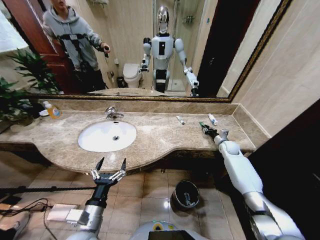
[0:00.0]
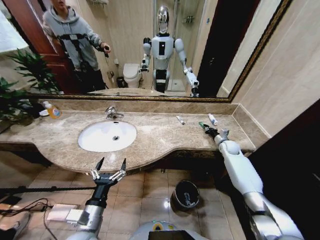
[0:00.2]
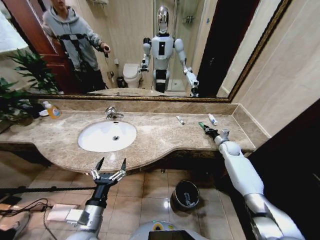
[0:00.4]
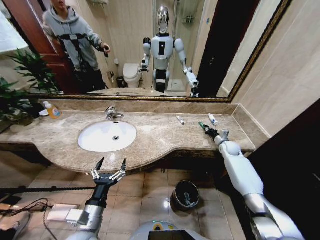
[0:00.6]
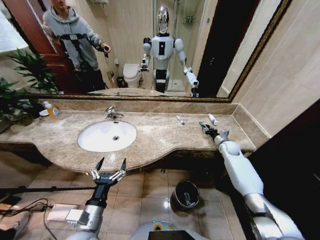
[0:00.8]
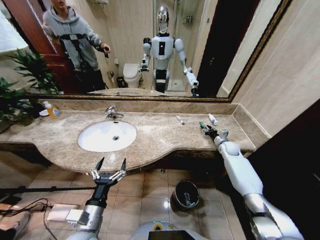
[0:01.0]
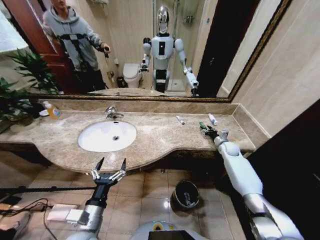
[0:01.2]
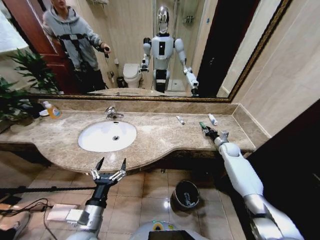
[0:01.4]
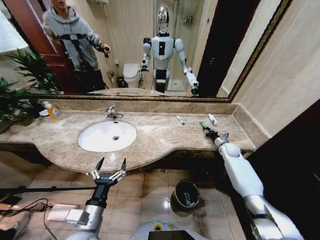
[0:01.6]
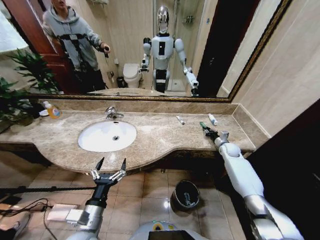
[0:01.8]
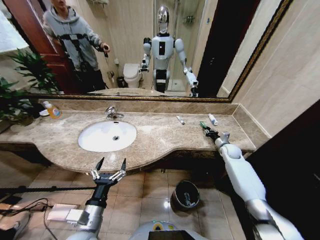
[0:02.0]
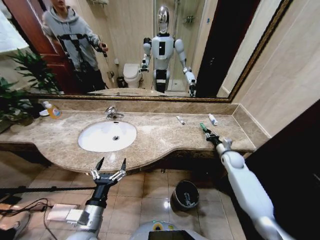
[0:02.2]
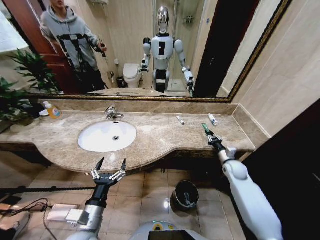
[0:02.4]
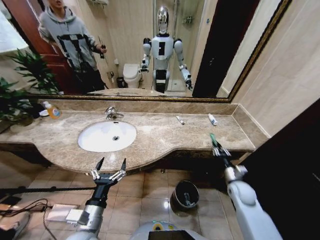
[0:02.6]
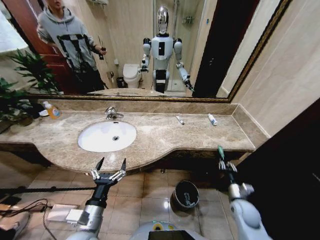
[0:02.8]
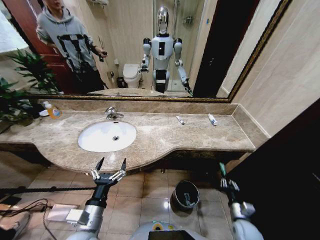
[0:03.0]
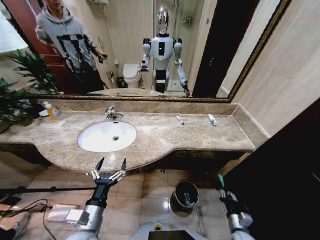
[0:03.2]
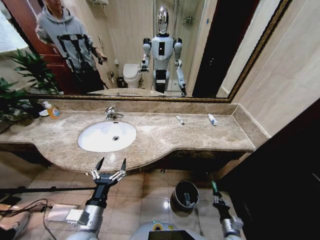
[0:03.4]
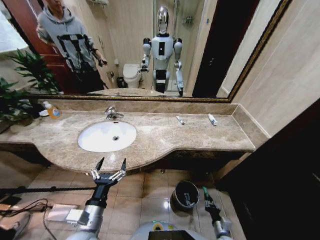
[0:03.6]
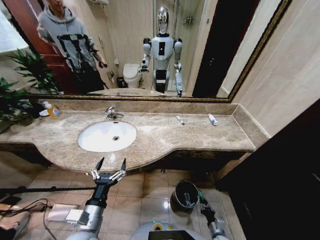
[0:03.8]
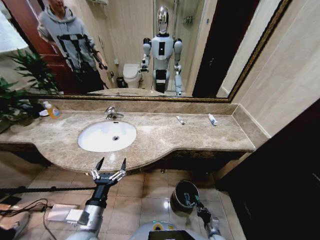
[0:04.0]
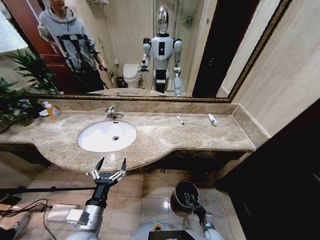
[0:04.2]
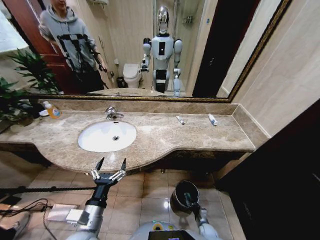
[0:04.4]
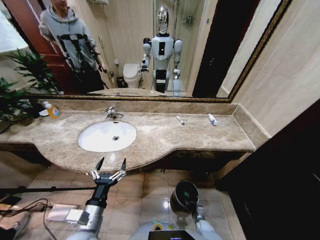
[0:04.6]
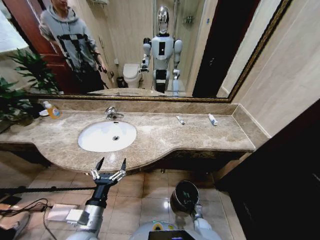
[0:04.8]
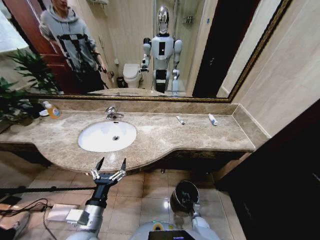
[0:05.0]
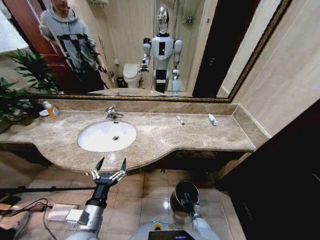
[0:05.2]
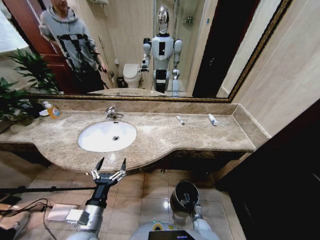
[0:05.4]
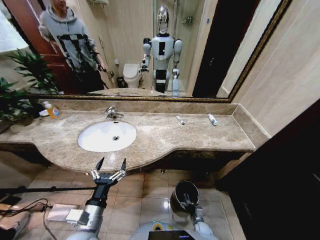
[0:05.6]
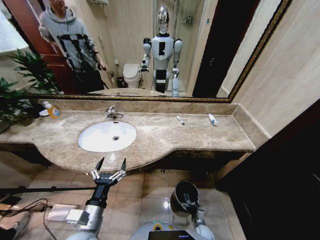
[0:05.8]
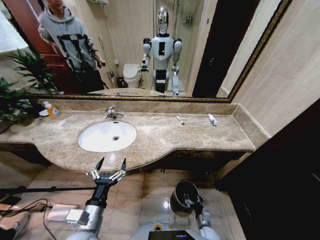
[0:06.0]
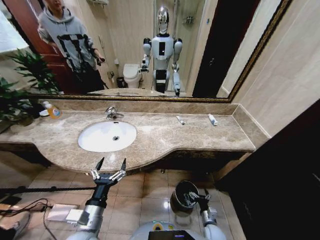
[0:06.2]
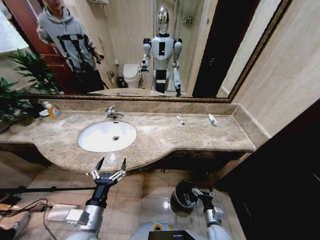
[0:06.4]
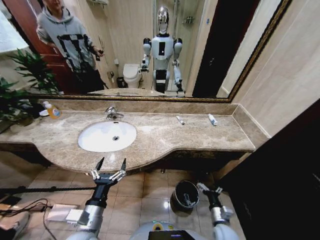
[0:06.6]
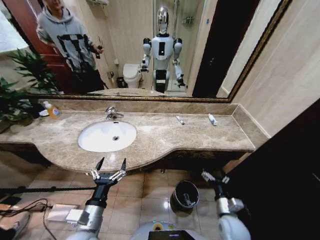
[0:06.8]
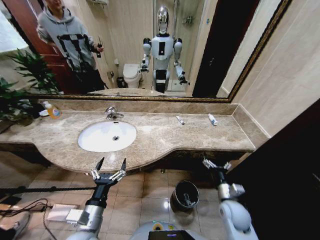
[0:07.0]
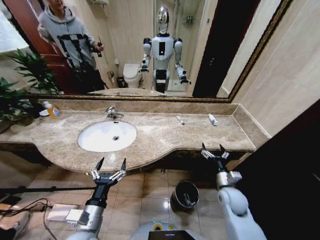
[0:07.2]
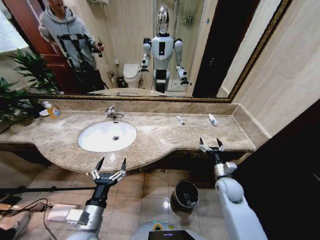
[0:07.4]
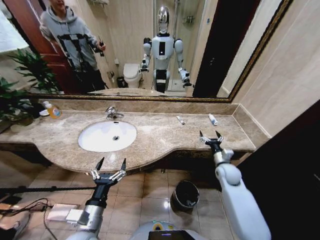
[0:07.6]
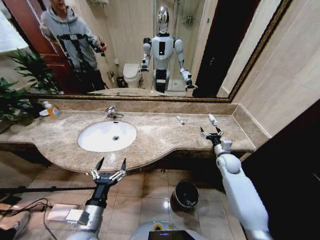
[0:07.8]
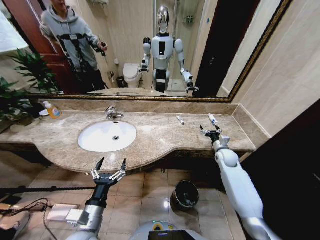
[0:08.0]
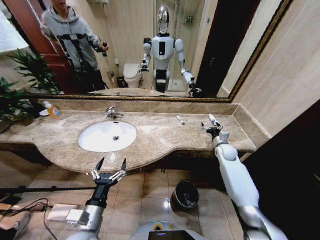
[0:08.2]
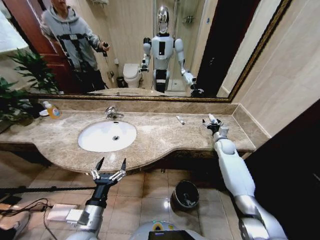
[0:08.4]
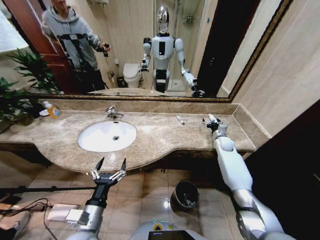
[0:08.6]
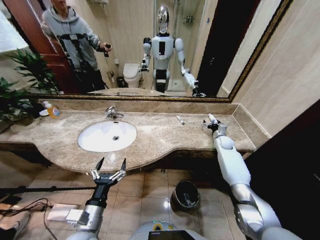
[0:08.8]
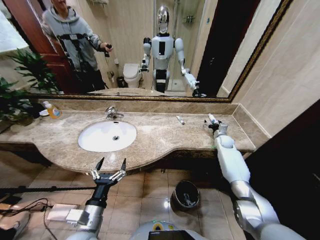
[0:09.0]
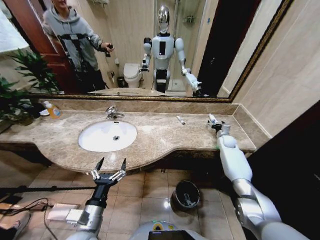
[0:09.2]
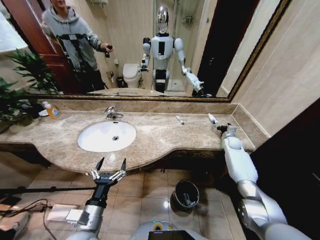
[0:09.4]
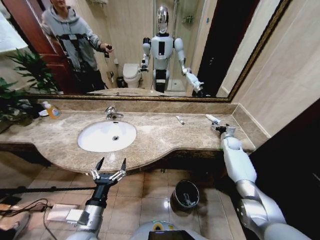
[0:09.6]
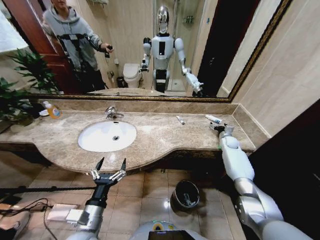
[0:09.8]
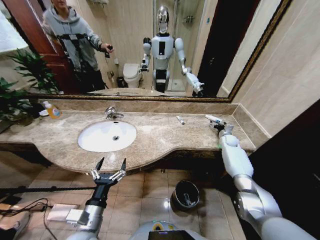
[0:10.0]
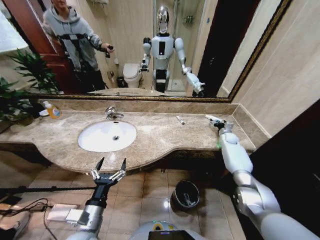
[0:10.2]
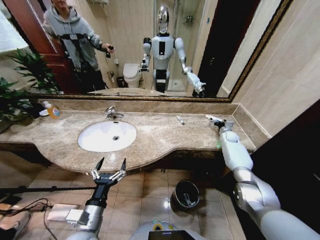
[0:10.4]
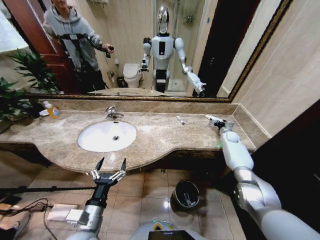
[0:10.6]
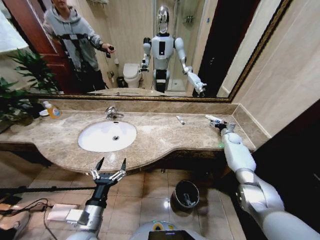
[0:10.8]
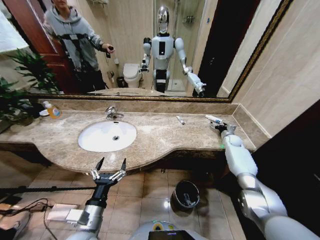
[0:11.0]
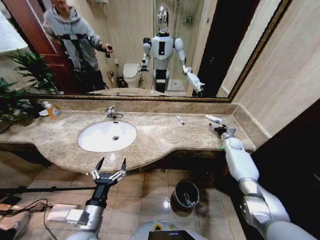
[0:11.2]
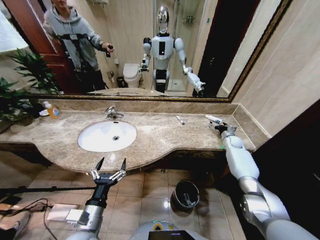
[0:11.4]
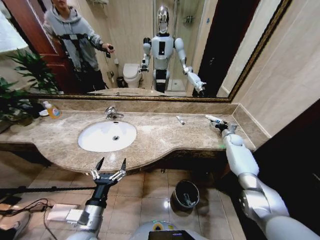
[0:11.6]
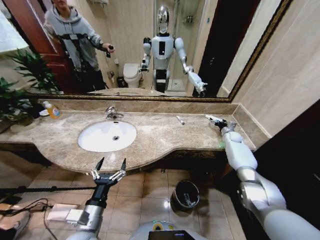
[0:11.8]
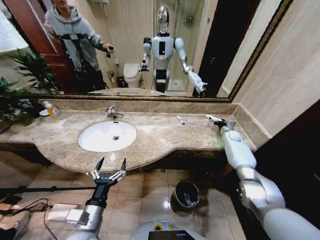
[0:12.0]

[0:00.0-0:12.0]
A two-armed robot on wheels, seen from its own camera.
Task of the whole recording: Pick up the trash from the sink and place it in the trash bin.
0:00.0 to 0:01.6: The right gripper opens and closes again.
0:01.6 to 0:03.0: The right gripper goes about 35 cm backward.
0:03.0 to 0:04.4: The right gripper heads downward, covering approximately 25 cm.
0:04.4 to 0:06.0: The right gripper moves upward, approximately 5 cm, and opens up.
0:06.0 to 0:07.6: The right gripper travels upward and forward by some 35 cm.
0:07.6 to 0:09.0: The right gripper goes approximately 20 cm forward and to the right.
0:09.0 to 0:10.4: The right gripper goes roughly 5 cm to the right.
0:10.4 to 0:12.0: The grippers stay close to where they were, moving slightly.

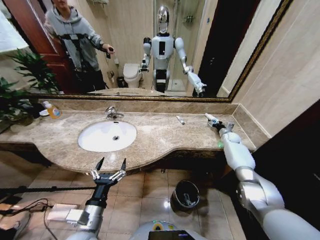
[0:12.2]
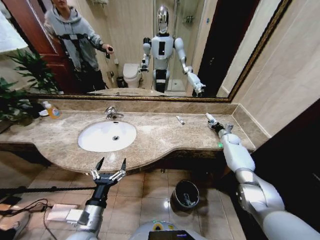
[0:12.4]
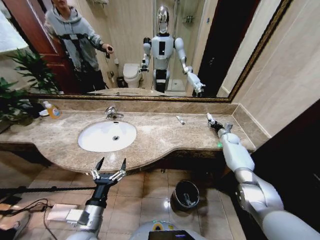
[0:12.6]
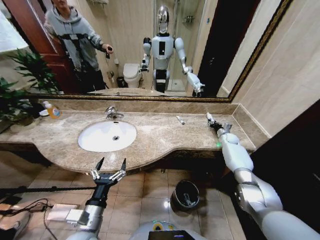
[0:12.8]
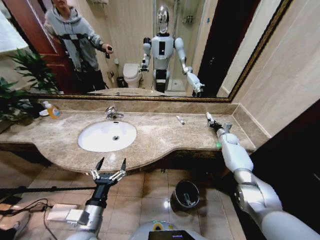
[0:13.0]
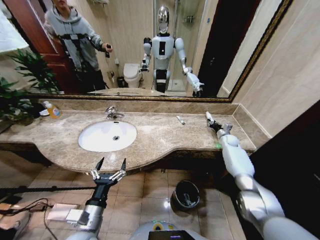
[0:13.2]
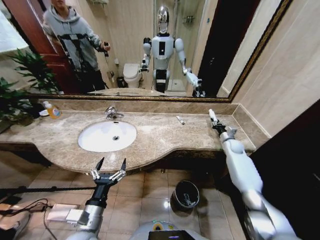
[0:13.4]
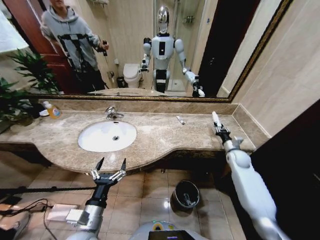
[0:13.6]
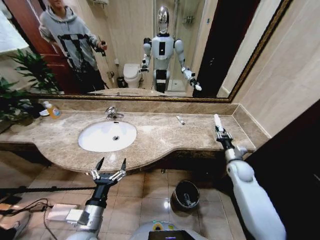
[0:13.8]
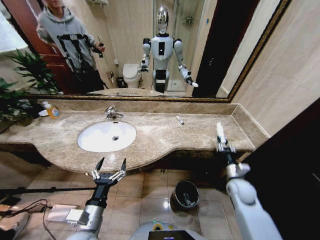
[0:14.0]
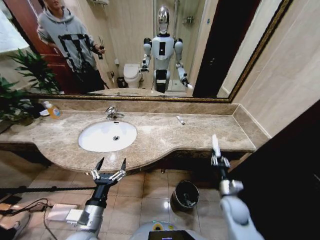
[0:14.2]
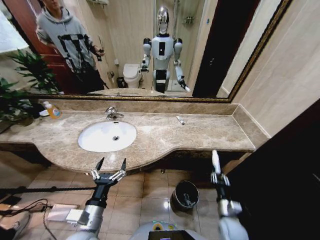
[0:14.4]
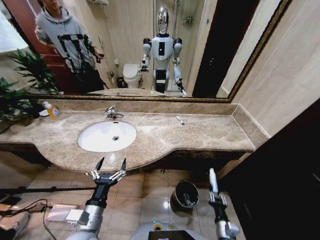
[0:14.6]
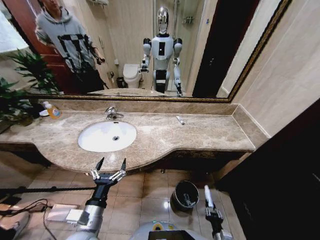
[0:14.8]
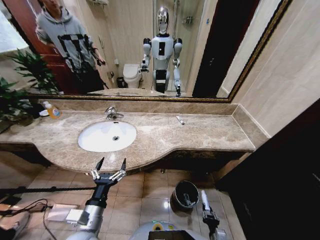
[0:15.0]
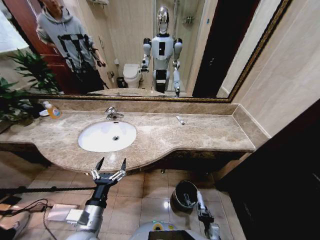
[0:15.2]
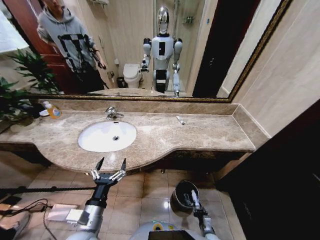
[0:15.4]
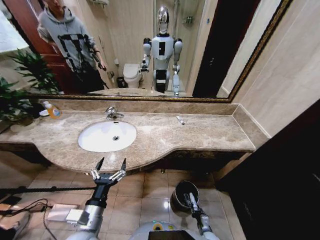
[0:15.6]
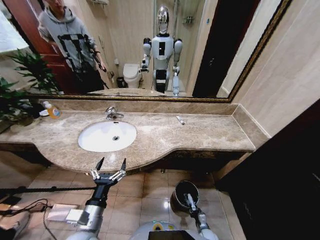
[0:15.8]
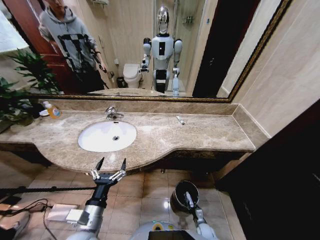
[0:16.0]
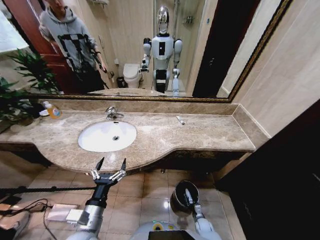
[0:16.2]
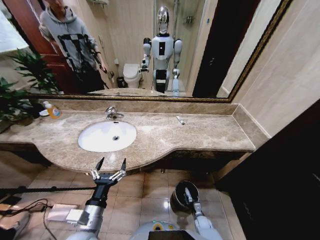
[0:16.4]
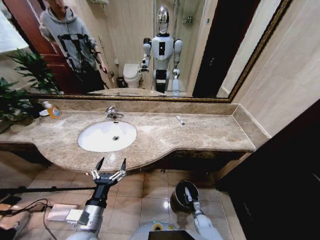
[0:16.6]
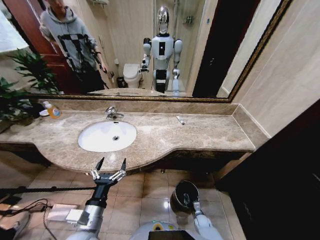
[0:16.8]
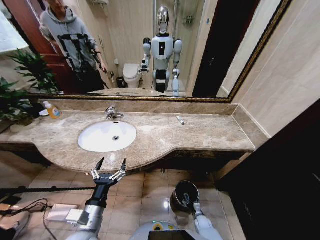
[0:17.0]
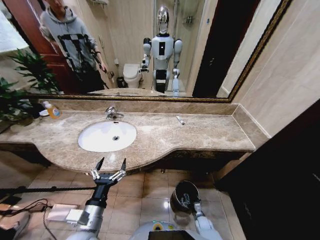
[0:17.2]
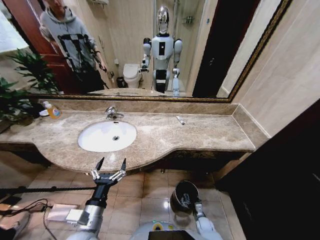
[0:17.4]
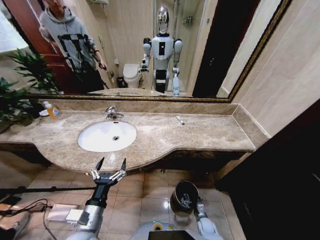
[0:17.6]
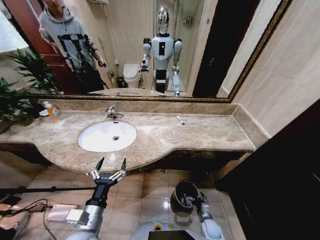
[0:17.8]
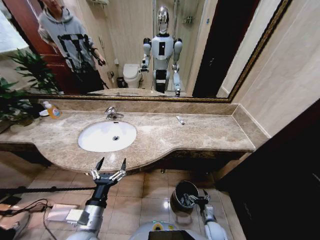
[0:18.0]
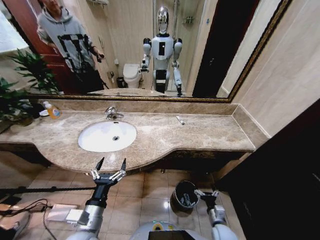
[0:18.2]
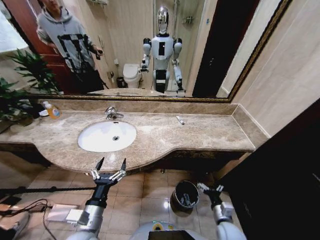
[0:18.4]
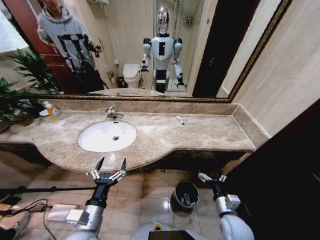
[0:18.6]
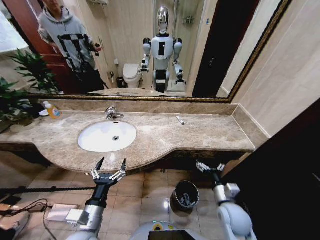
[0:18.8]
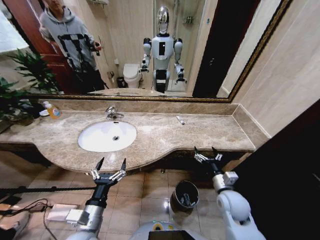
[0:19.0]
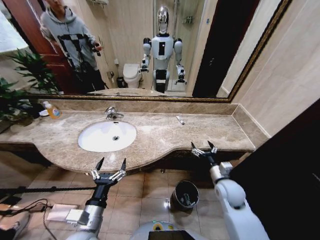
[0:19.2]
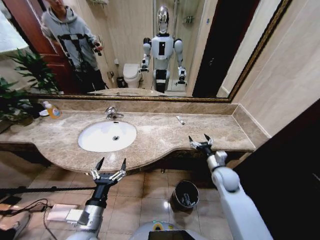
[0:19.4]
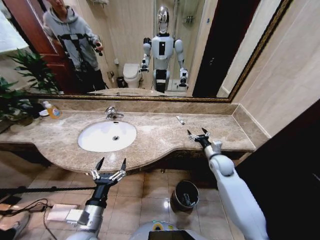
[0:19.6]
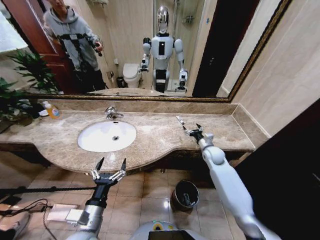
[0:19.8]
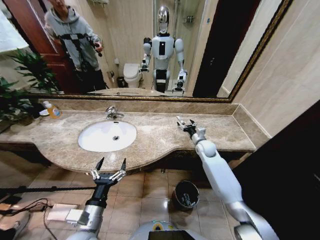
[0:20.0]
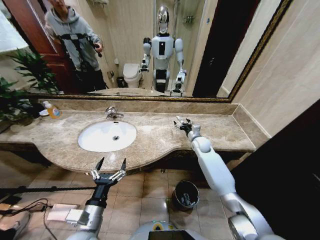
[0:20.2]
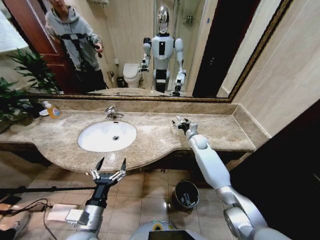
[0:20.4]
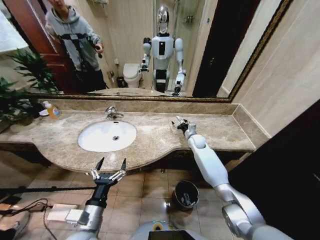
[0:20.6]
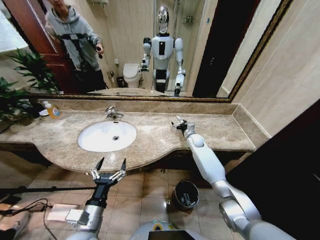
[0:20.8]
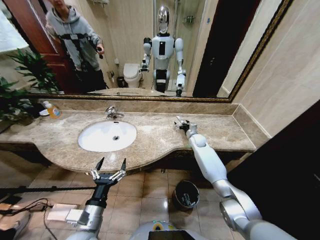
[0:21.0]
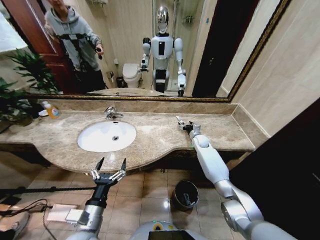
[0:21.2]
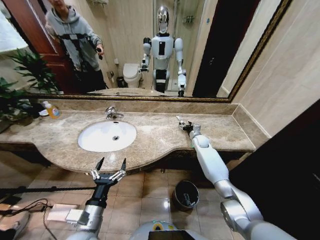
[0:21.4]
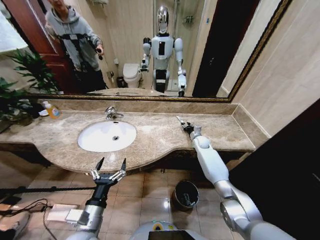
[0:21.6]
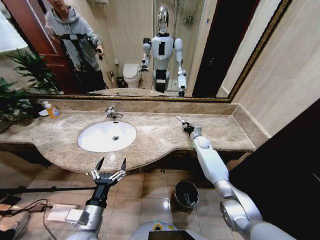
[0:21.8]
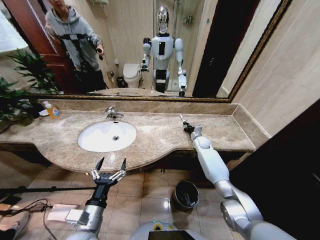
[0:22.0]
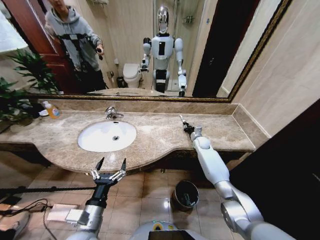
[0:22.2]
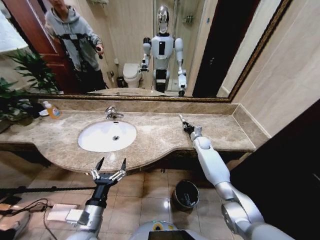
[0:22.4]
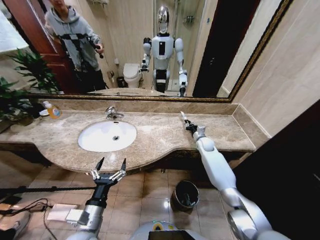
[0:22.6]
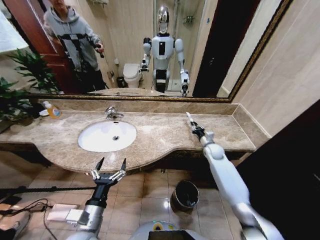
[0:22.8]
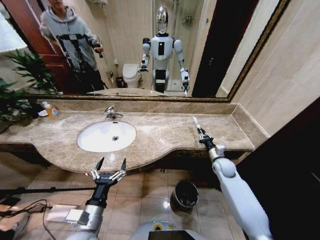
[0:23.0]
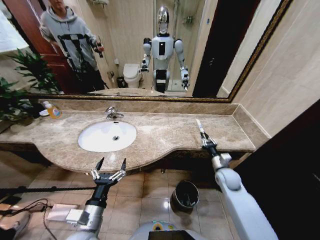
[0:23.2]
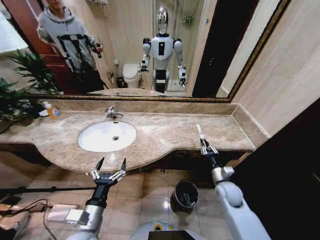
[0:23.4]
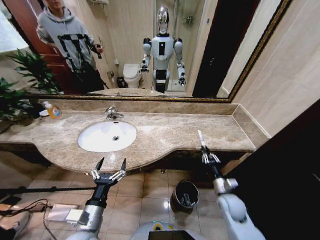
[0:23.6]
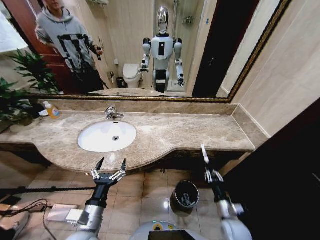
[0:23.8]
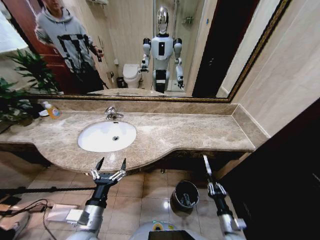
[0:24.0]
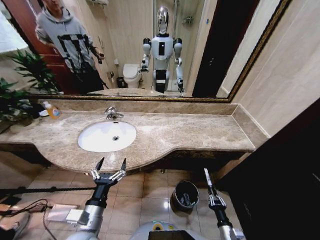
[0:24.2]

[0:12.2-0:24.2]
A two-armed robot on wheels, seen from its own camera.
Task of the whole recording: Pick up the trash from the sink and place it in the trash bin.
0:12.2 to 0:13.8: The right gripper travels backward and to the left by about 25 cm, and closes its fingers.
0:13.8 to 0:15.2: The right gripper moves downward, backward and to the left, approximately 40 cm.
0:15.2 to 0:16.6: The right gripper shifts about 15 cm forward and downward.
0:16.6 to 0:18.2: The right gripper shifts about 15 cm upward, and opens its fingers.
0:18.2 to 0:19.8: The right gripper goes some 40 cm forward and upward.
0:19.8 to 0:21.2: The right gripper travels forward by roughly 10 cm.
0:21.2 to 0:22.6: The right gripper closes.
0:22.6 to 0:24.2: The right gripper is displaced backward and downward by about 50 cm.
